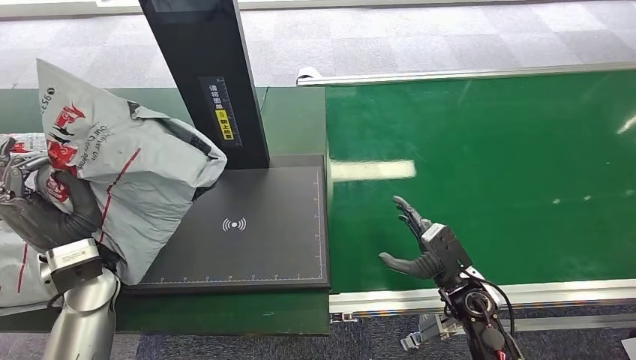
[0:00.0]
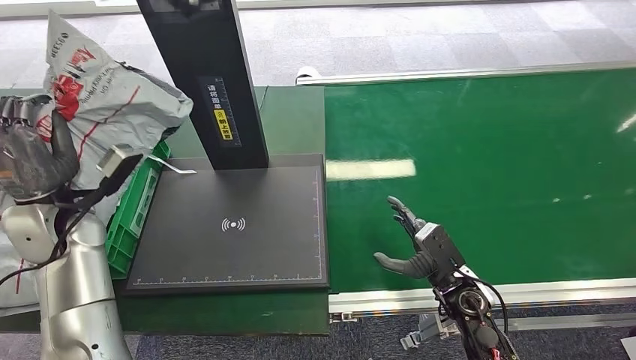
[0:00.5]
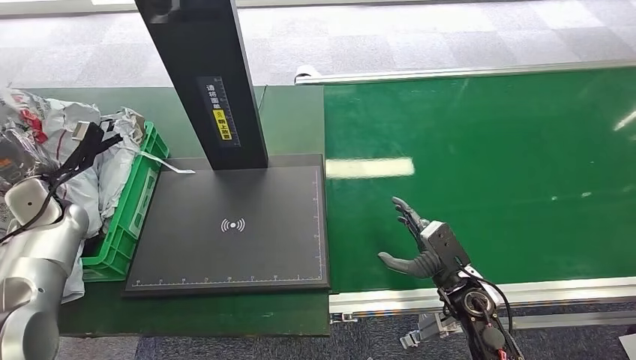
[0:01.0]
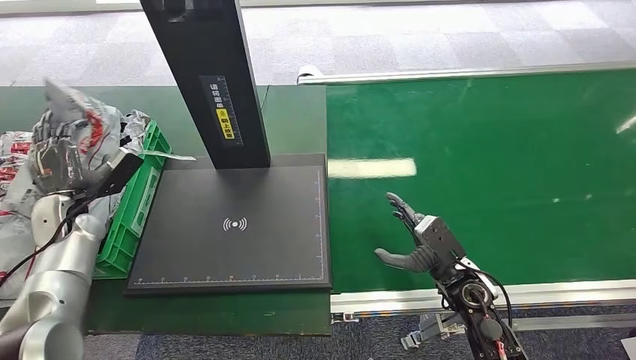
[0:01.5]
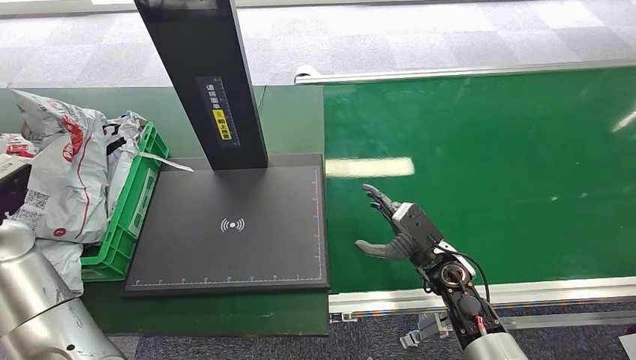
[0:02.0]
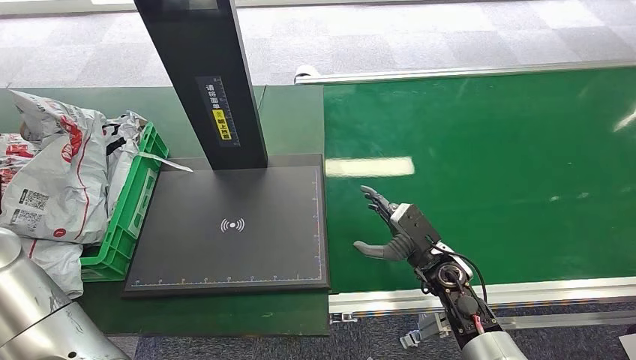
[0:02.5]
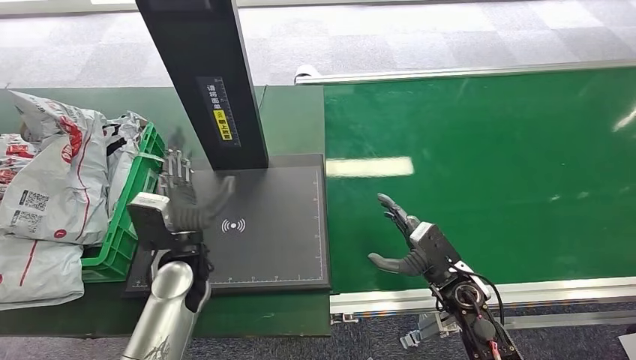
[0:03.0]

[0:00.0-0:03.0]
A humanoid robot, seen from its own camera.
Step, 0:00.0 to 0:03.0: Place the package into the parcel locker.
